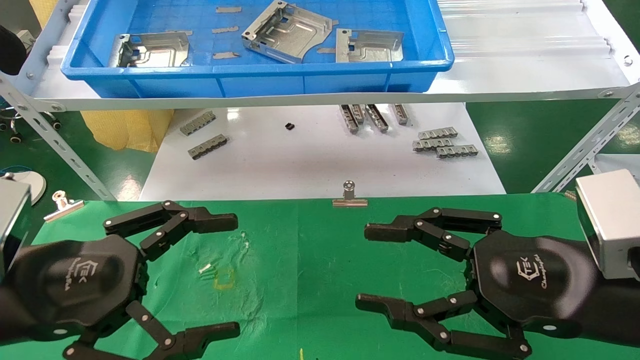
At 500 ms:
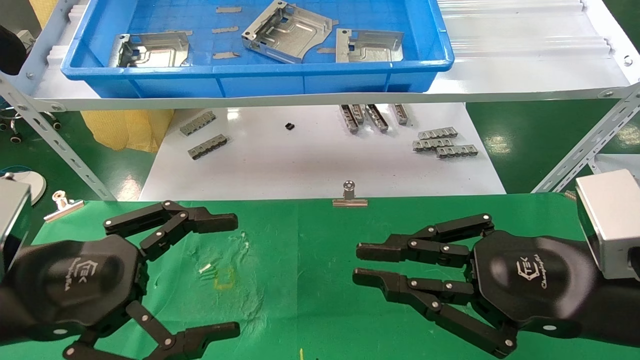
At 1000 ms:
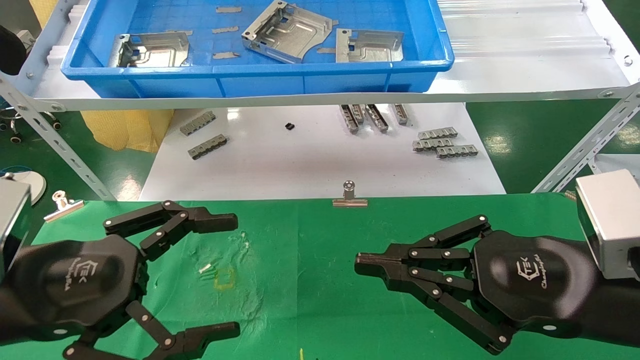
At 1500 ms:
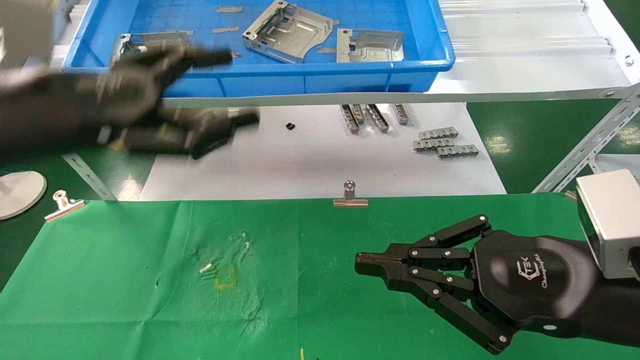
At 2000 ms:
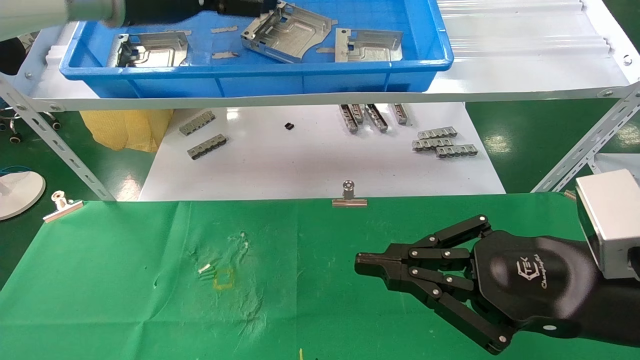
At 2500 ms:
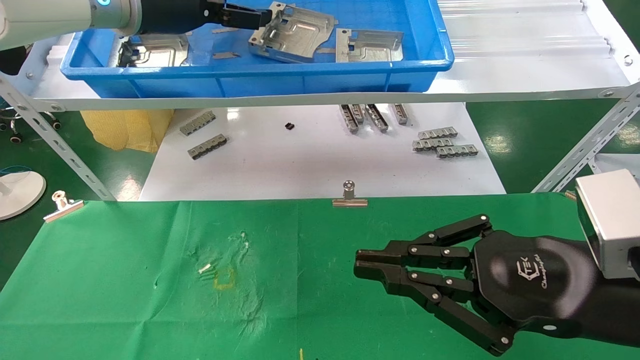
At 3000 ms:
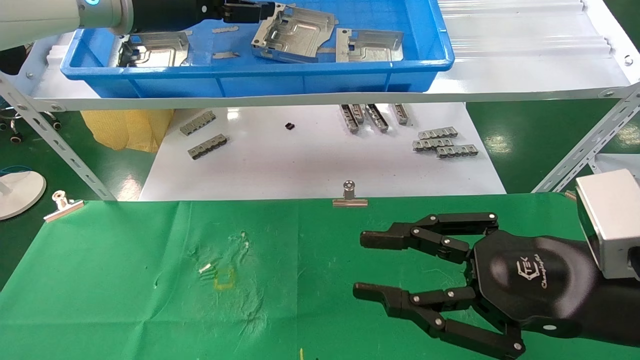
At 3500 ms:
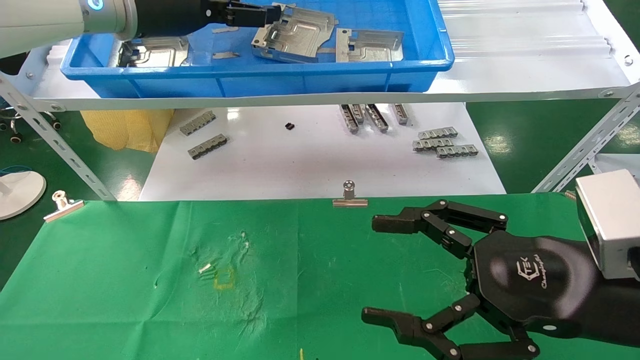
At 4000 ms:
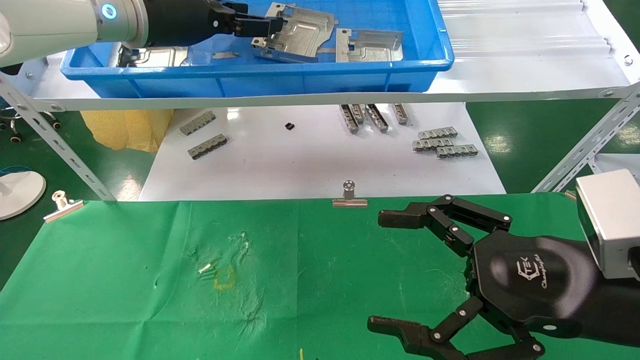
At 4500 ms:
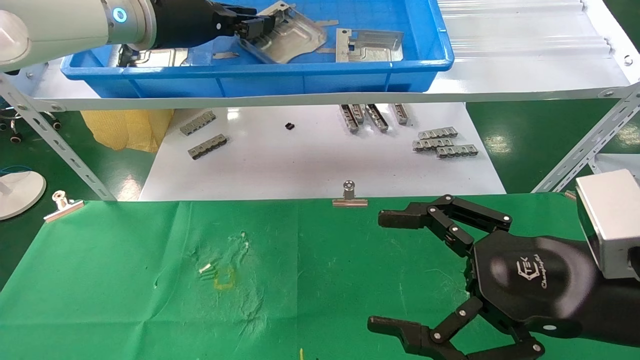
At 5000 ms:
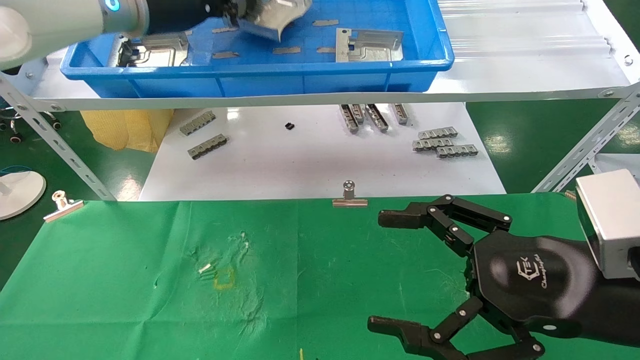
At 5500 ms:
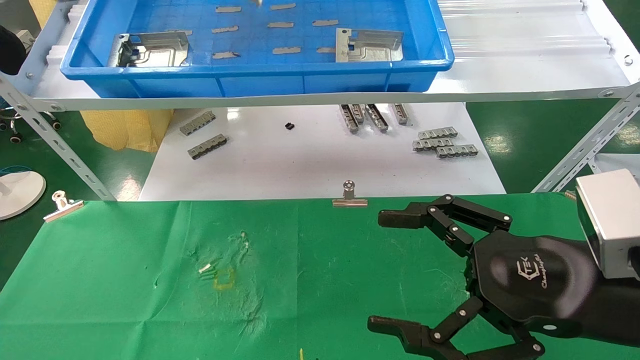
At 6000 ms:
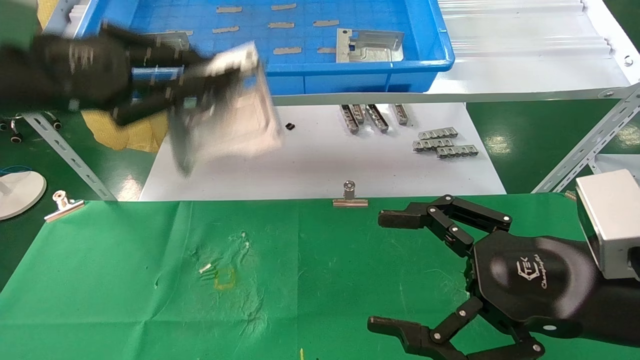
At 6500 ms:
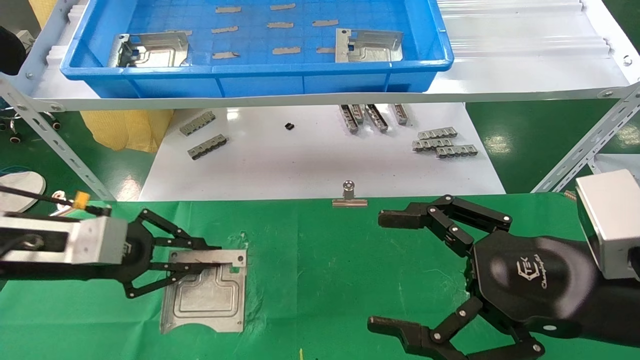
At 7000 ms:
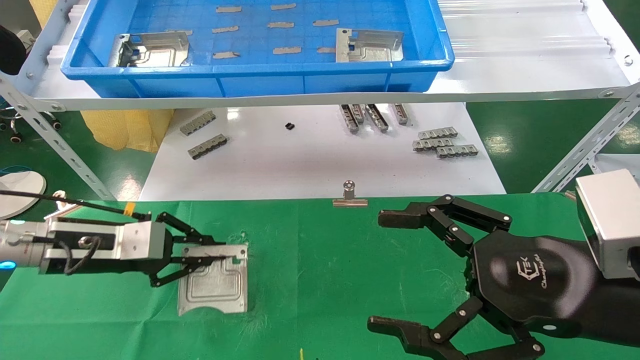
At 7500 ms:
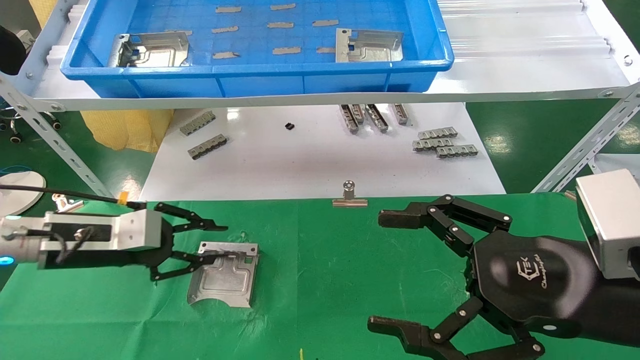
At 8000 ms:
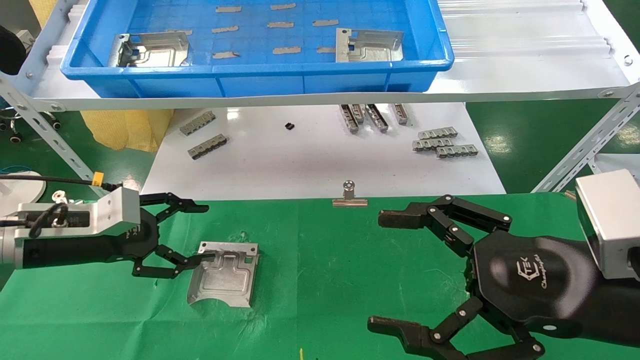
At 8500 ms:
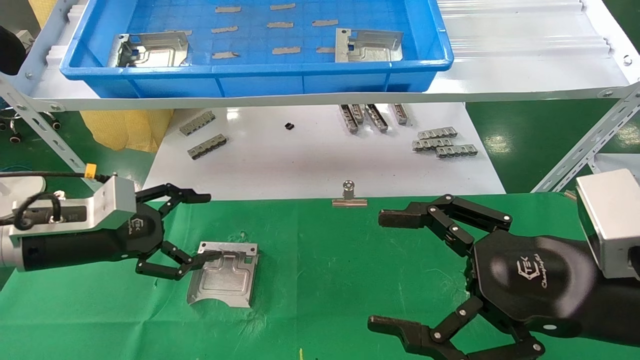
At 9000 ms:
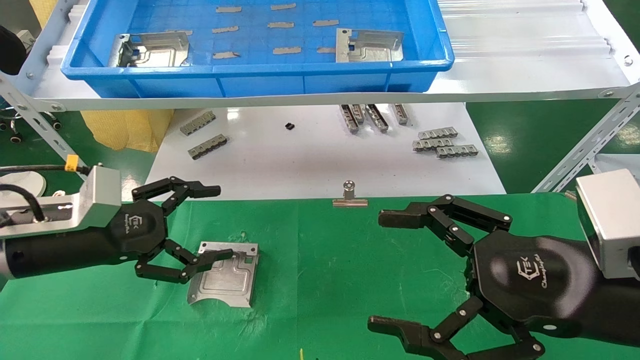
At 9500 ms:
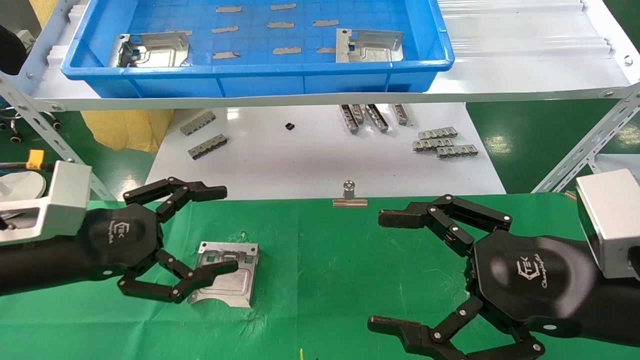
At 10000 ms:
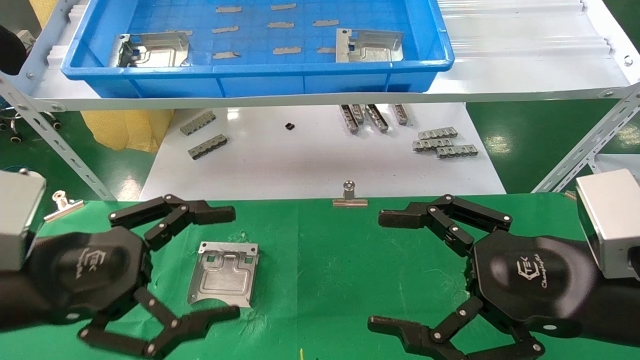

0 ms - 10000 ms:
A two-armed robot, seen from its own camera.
Task of the whole recording: use the mechanical arm to pick up the parts and place them on the table.
Step, 1500 ms - 4500 ms: Pick up the hard drive bracket from the feeding area.
Step, 5000 ms - 7500 ms: Place the hard drive bracket into the box.
0 ms - 2000 ms: The right gripper closes its fingers; the left gripper shifts approximately 30 cm upward and forward.
2000 ms - 4000 ms: The right gripper opens up.
4000 ms - 6000 ms: The left gripper heads backward, to the left and downward, covering approximately 20 cm, and closes its fingers.
6000 ms - 8000 ms: The left gripper heads downward, covering roughly 20 cm, and opens.
8000 ms - 10000 ms: The left gripper heads backward and to the right, covering about 15 cm, and opens up.
